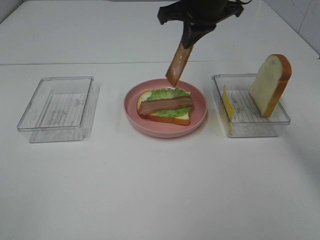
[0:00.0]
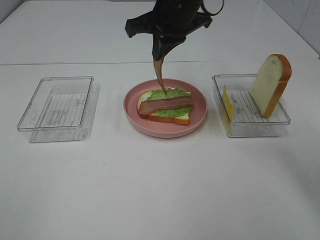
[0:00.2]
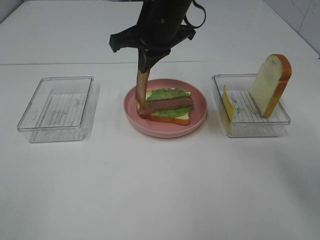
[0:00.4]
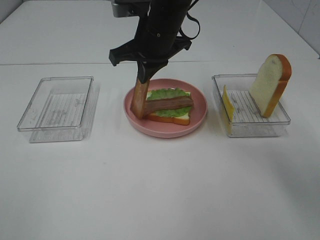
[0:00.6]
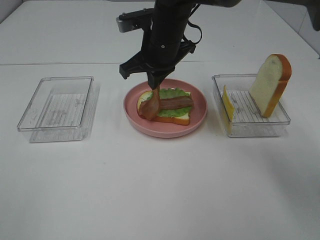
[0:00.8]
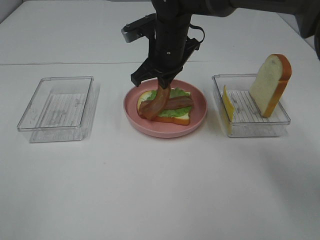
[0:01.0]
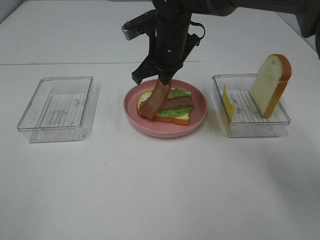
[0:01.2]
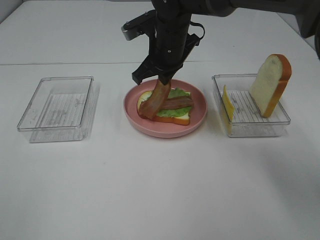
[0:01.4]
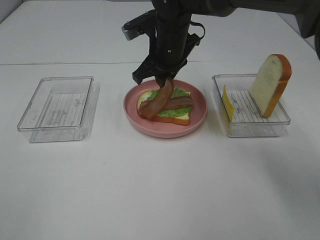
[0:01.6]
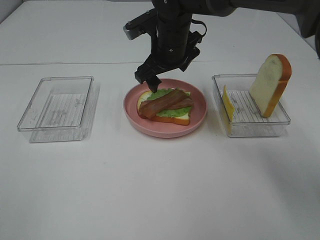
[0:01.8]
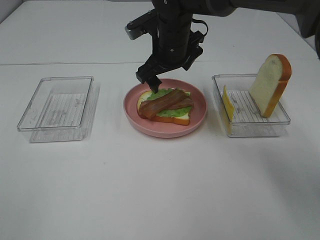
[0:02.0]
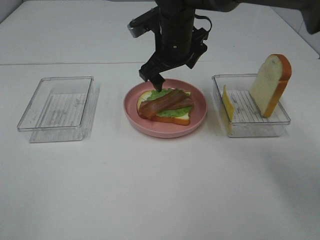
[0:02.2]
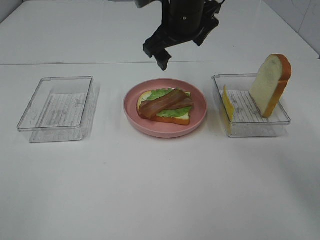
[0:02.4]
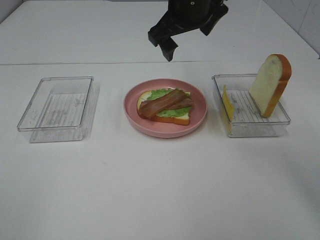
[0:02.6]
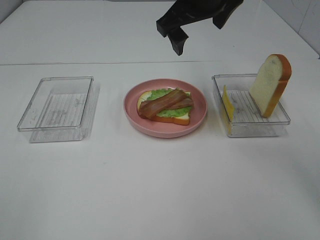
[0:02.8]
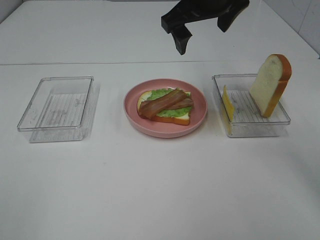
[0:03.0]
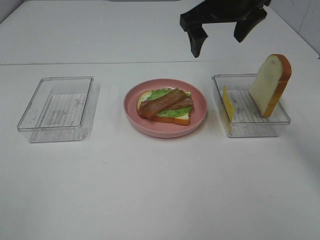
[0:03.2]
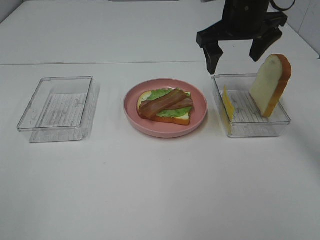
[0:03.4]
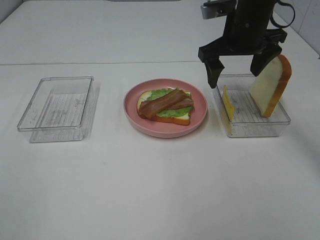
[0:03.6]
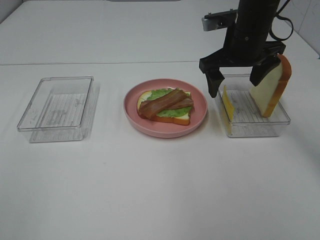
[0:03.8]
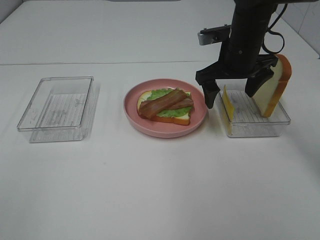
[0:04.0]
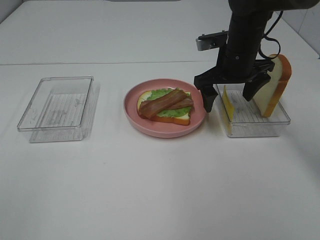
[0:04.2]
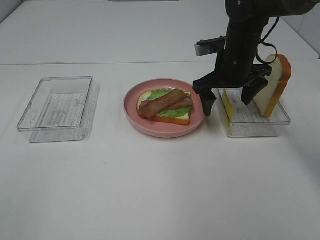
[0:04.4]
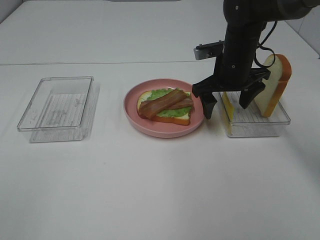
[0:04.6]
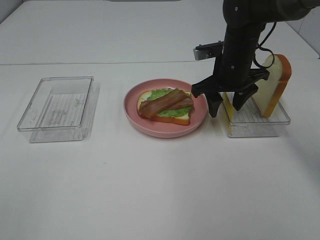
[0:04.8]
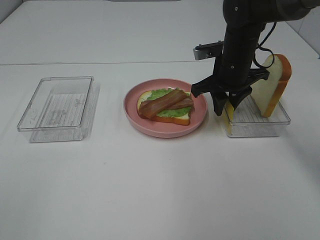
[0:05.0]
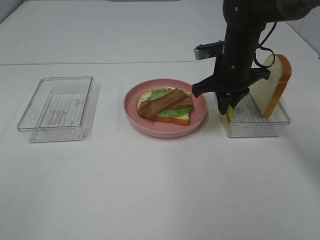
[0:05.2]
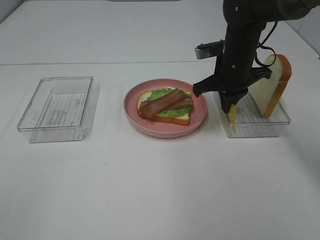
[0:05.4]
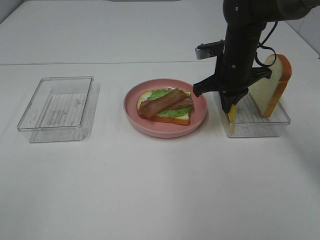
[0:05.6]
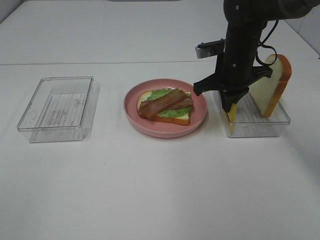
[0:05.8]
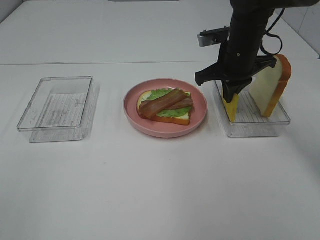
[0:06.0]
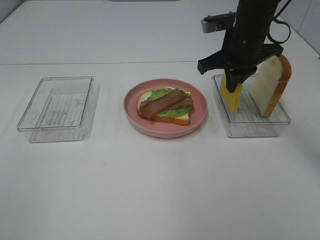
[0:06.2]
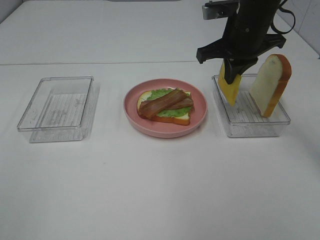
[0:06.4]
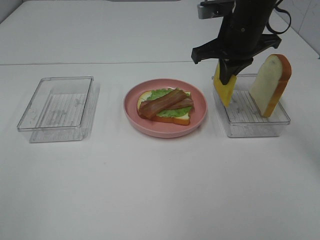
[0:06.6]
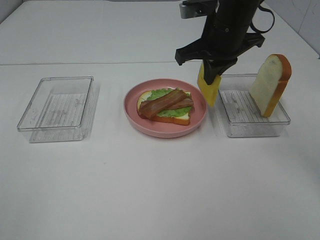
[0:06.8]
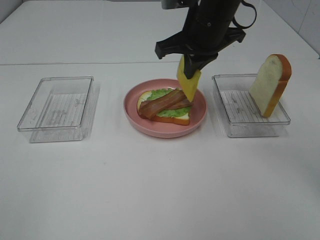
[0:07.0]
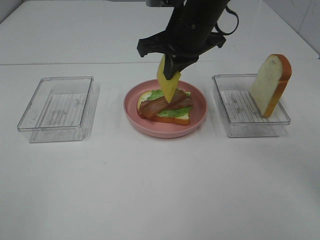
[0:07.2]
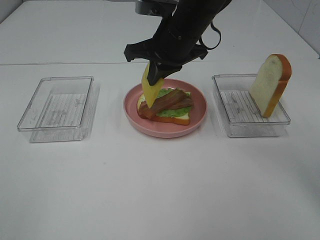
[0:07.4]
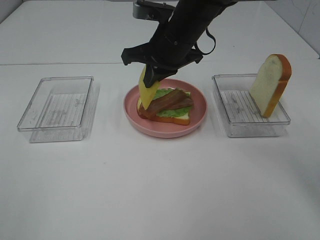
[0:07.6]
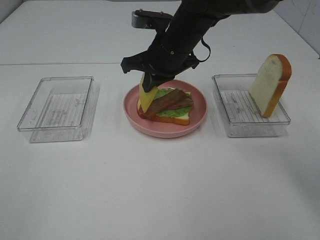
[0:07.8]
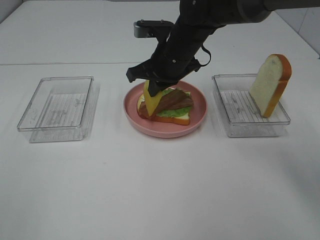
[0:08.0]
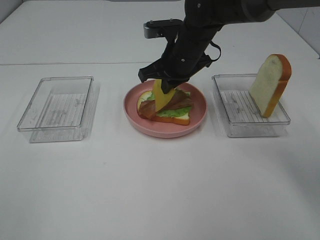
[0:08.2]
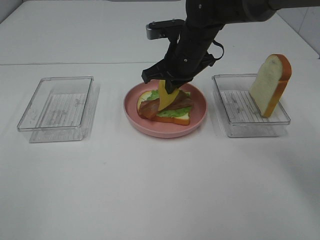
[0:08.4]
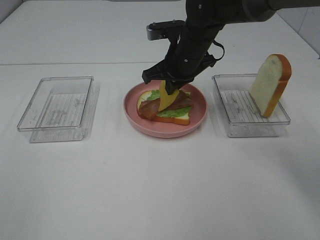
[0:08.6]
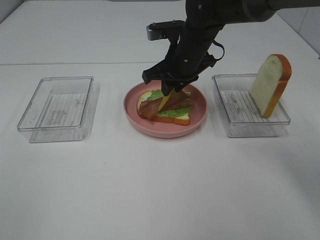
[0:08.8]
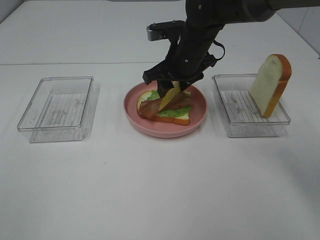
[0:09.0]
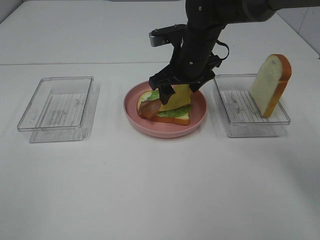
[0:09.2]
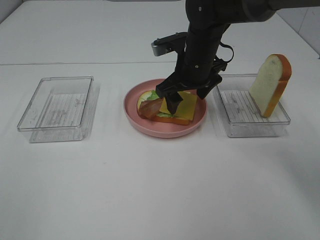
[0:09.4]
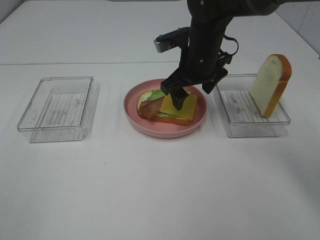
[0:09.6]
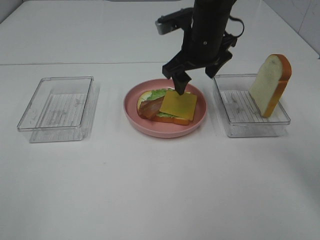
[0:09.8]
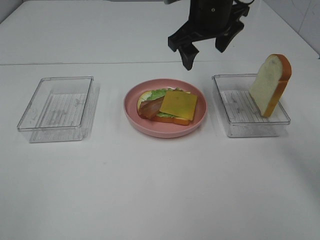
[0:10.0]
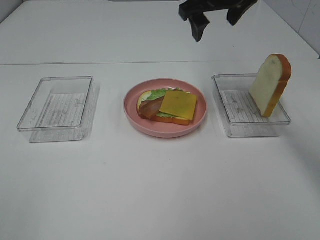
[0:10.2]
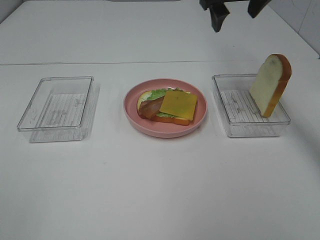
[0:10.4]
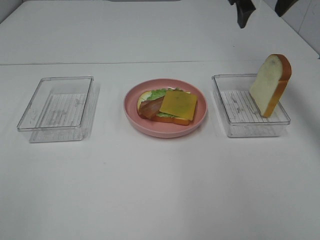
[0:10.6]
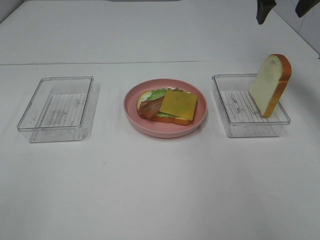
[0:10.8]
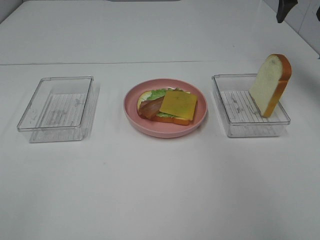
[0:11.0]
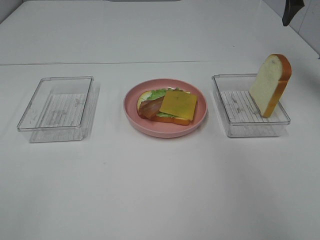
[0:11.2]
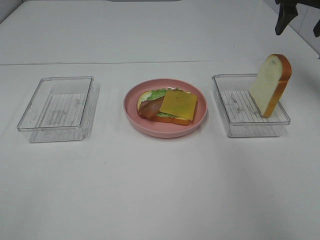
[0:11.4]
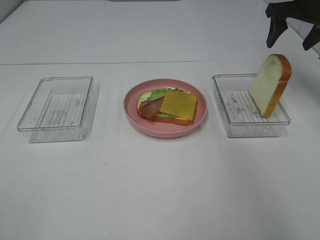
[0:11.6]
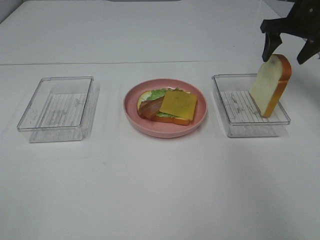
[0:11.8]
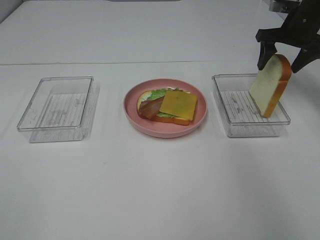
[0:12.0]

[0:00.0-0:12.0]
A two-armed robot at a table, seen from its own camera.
Task of the whole recording: Make sandwiches.
Step, 0:00.0 to 0:02.2: Right hand:place bacon on bacon.
Step, 0:02.4 to 0:05.6: Right hand:grab the cheese slice.
Step, 0:05.8 to 0:09.6: Right hand:place the cheese slice on top of the bacon.
0:00.0 to 0:01.6: The right gripper goes approximately 10 cm downward and to the left, and opens.
0:01.6 to 0:03.0: The right gripper is displaced upward and to the right by roughly 15 cm, and opens.
0:03.0 to 0:04.4: The right gripper goes some 15 cm downward and to the right.
0:04.4 to 0:06.0: The right gripper closes up.
0:06.0 to 0:07.6: The right gripper shifts about 10 cm to the left.
0:07.6 to 0:09.0: The right gripper ends up about 5 cm from where it was, and opens its fingers.
0:09.0 to 0:10.4: The right gripper travels upward and to the right by roughly 15 cm.
0:10.4 to 0:12.0: The right gripper shifts about 20 cm to the right and downward.

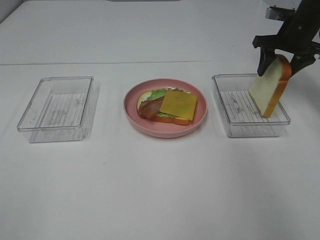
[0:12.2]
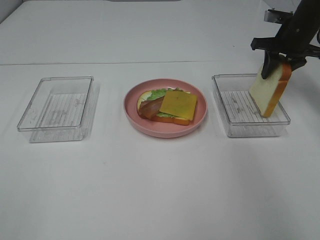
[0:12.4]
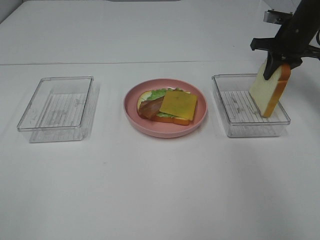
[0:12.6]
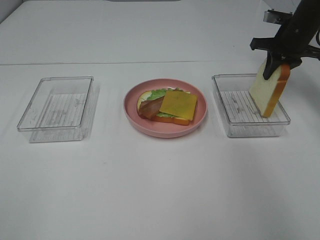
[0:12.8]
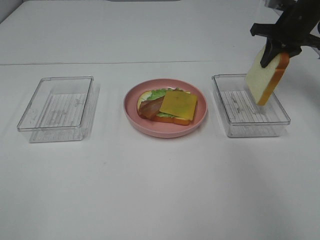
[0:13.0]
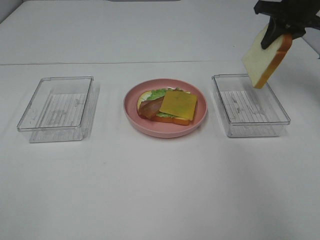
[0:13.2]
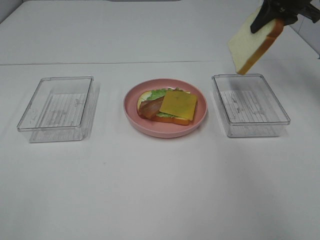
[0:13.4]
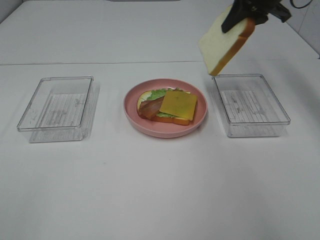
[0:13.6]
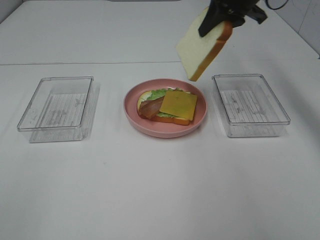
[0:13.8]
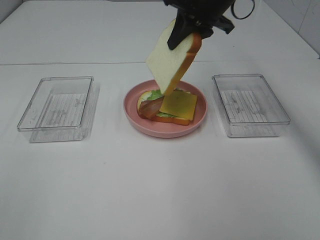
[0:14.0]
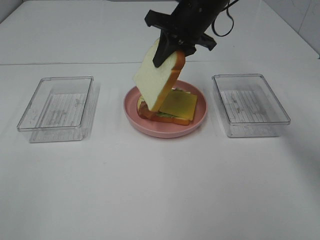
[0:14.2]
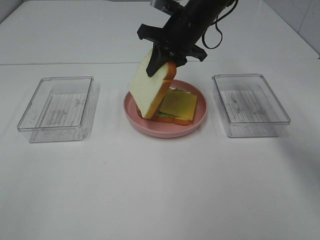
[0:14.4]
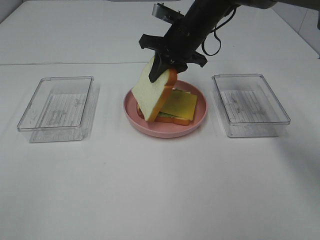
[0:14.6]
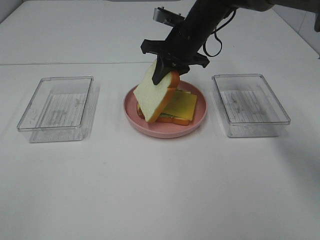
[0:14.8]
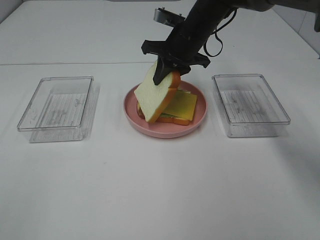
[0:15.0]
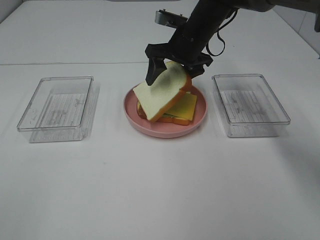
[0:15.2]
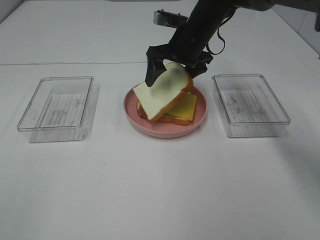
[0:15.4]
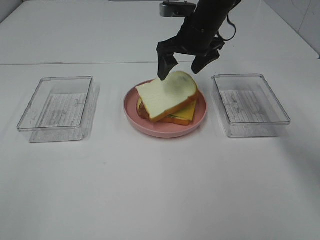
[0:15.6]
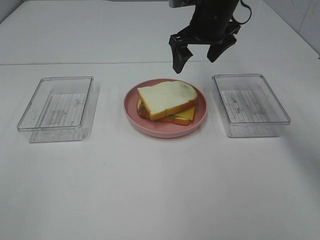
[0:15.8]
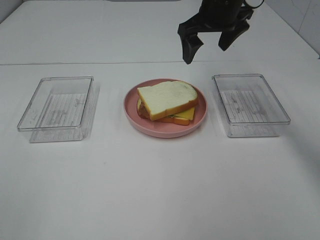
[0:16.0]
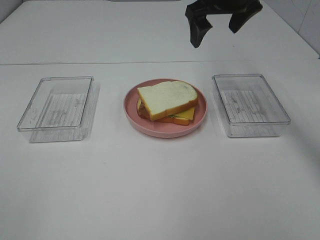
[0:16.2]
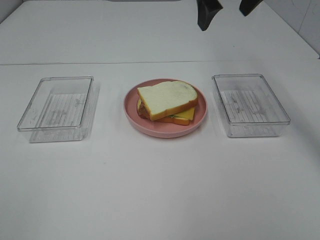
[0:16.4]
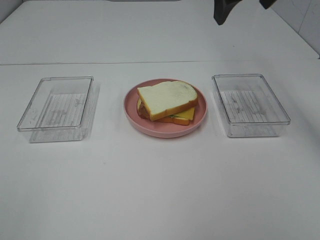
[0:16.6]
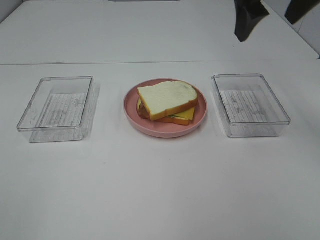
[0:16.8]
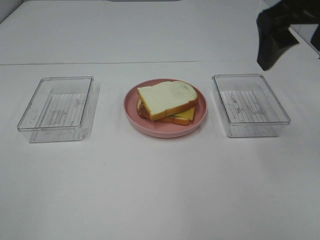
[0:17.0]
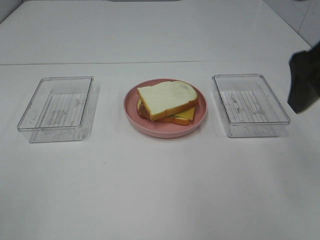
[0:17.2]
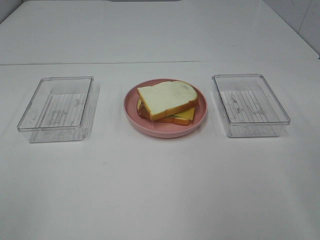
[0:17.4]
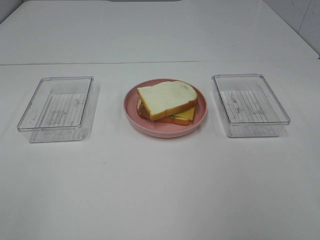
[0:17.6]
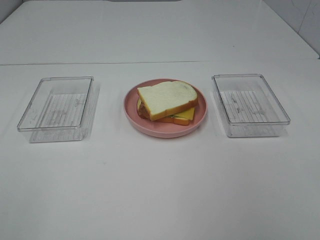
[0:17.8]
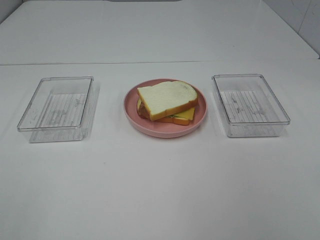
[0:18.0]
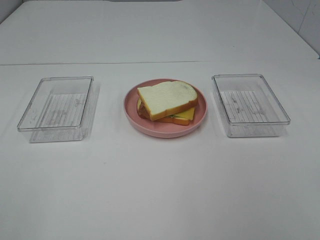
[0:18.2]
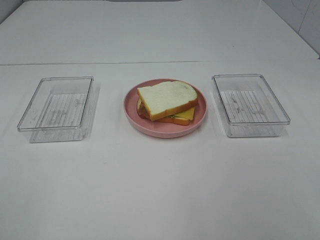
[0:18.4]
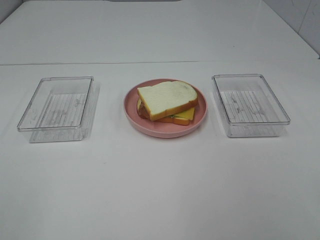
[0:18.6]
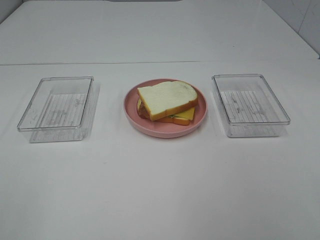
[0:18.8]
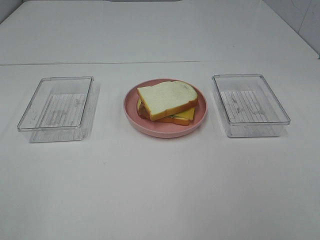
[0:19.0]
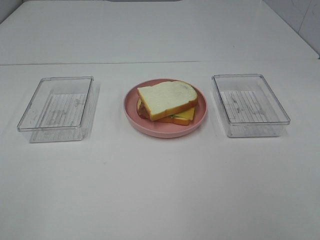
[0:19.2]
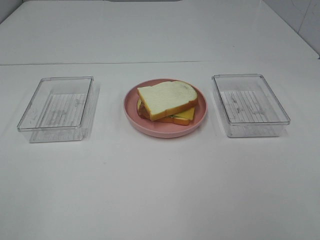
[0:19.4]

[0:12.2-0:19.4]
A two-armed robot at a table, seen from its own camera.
Task of the whole recording: Make sandwiches.
Step, 0:12.4 to 0:15.6: Right hand:place the bread slice on the cheese slice.
0:12.2 to 0:13.6: The right gripper goes about 15 cm upward and to the left, and closes.
0:13.6 to 0:15.0: The right gripper is displaced to the left and downward by approximately 20 cm.
0:15.0 to 0:16.6: The right gripper is displaced upward, backward and to the right by about 20 cm, and opens its fingers.
0:16.6 to 0:18.0: The right gripper travels backward and to the right by roughly 40 cm.
